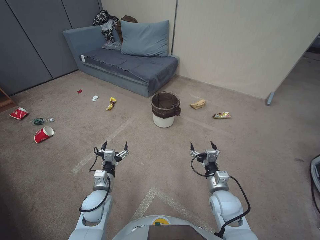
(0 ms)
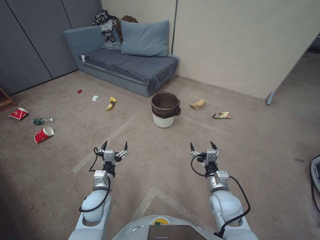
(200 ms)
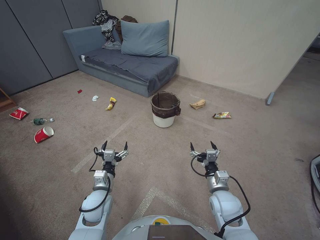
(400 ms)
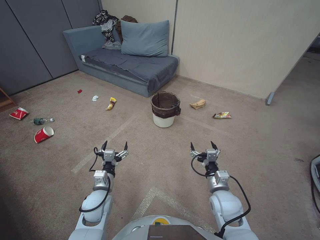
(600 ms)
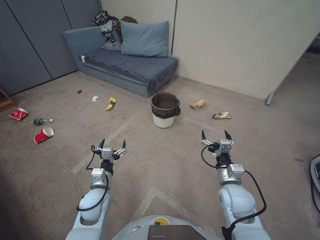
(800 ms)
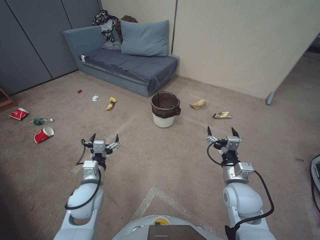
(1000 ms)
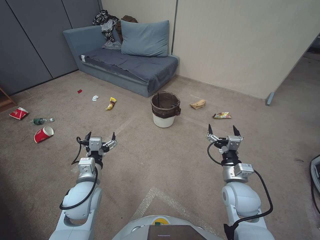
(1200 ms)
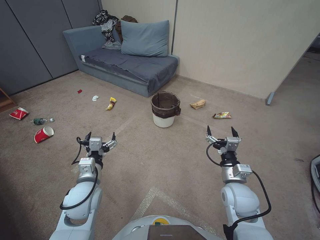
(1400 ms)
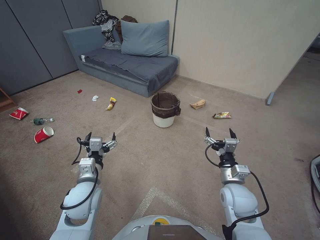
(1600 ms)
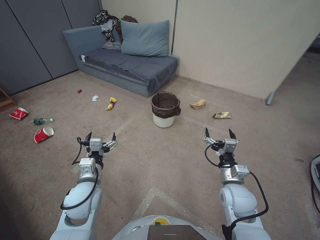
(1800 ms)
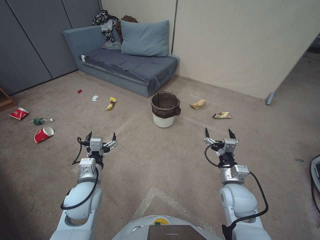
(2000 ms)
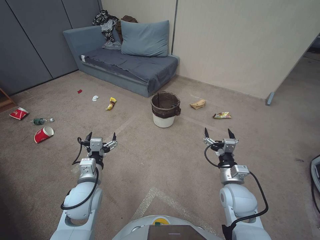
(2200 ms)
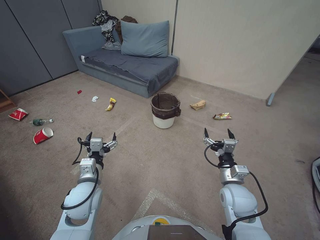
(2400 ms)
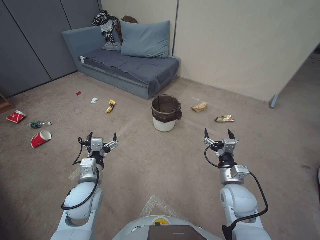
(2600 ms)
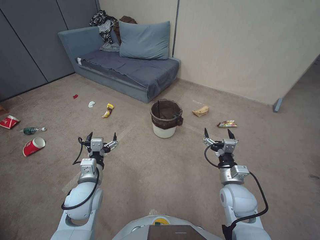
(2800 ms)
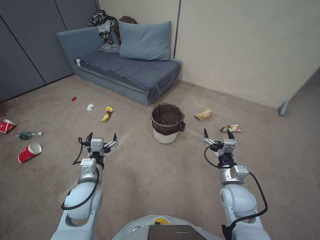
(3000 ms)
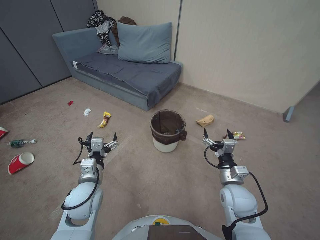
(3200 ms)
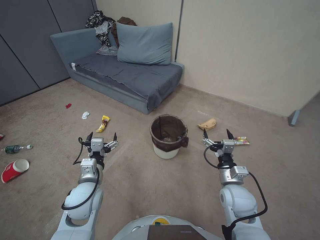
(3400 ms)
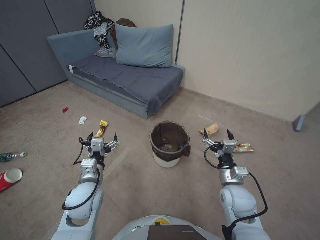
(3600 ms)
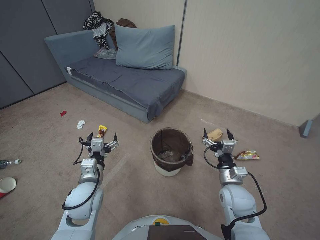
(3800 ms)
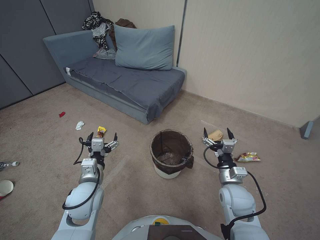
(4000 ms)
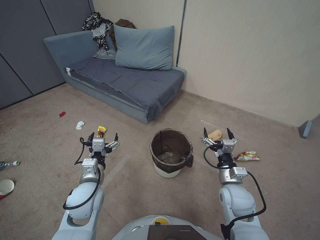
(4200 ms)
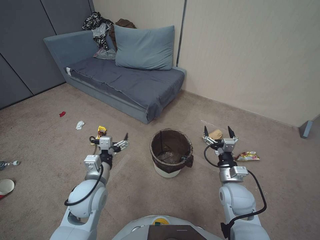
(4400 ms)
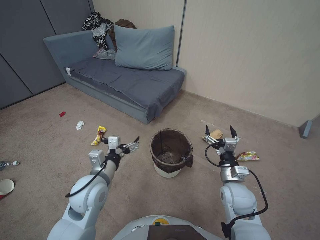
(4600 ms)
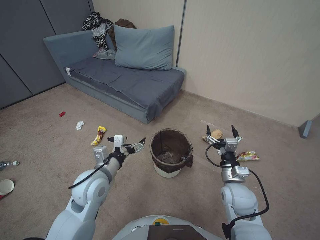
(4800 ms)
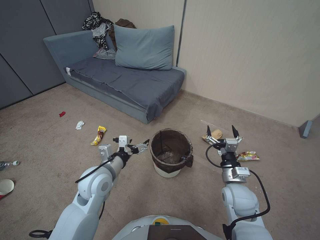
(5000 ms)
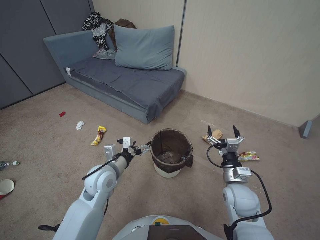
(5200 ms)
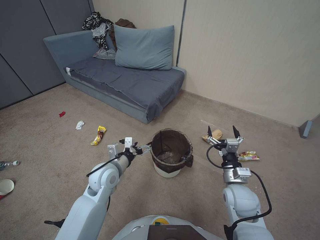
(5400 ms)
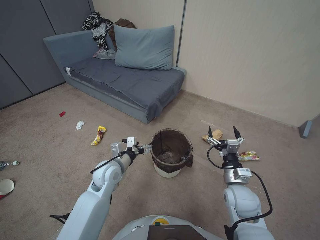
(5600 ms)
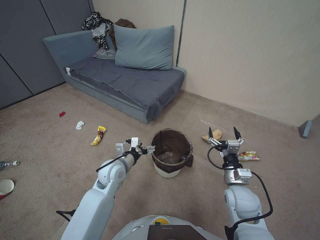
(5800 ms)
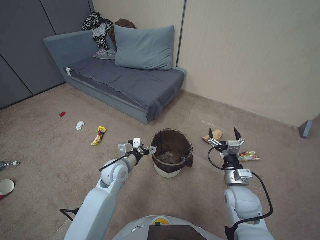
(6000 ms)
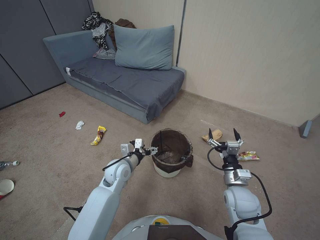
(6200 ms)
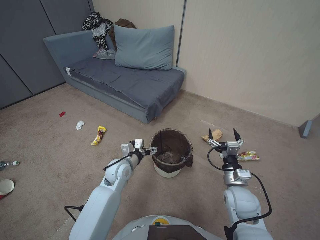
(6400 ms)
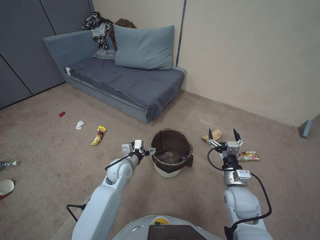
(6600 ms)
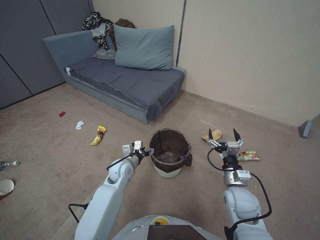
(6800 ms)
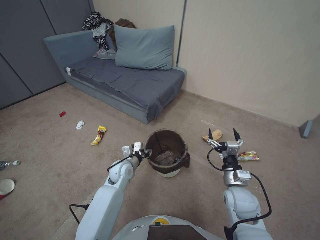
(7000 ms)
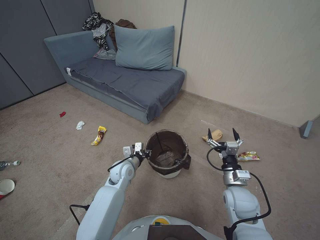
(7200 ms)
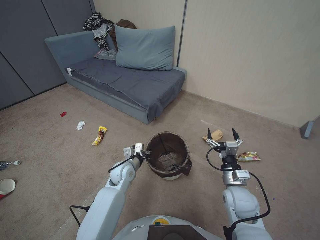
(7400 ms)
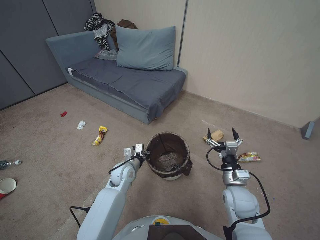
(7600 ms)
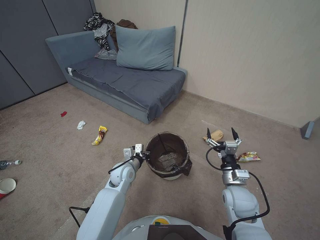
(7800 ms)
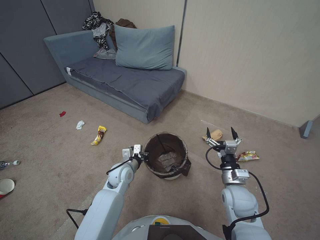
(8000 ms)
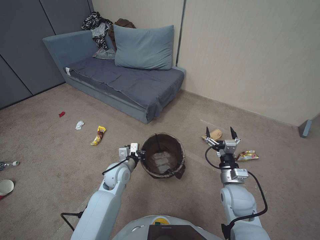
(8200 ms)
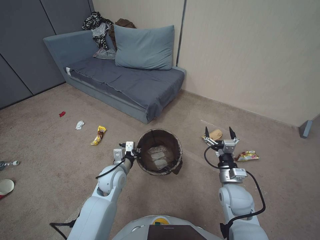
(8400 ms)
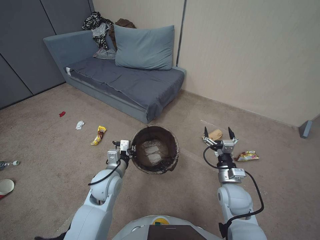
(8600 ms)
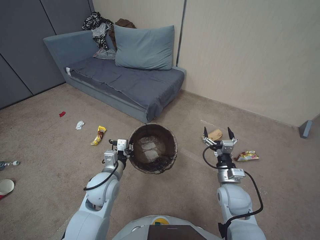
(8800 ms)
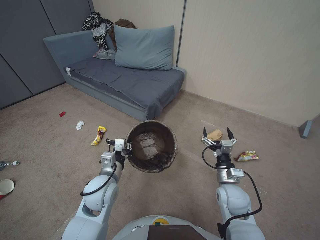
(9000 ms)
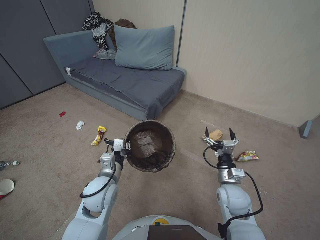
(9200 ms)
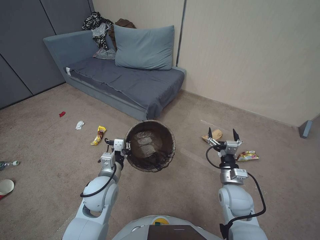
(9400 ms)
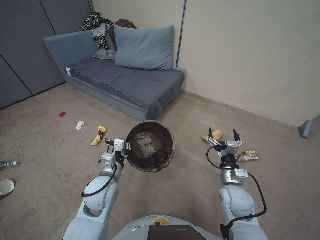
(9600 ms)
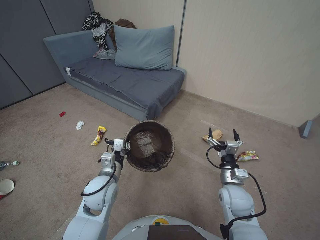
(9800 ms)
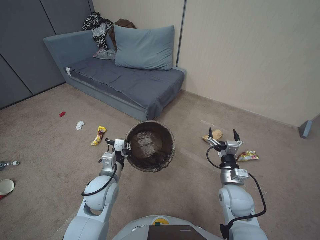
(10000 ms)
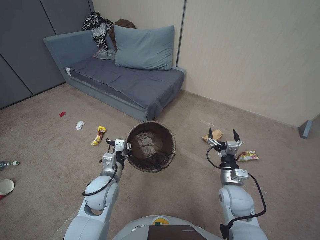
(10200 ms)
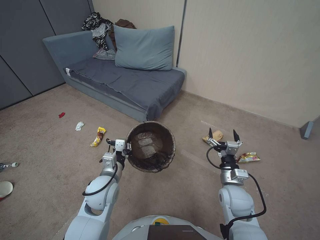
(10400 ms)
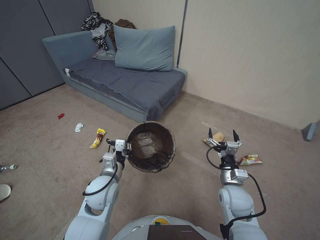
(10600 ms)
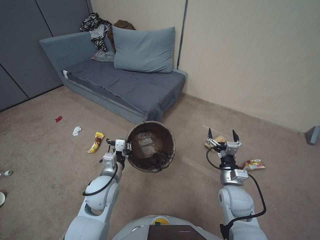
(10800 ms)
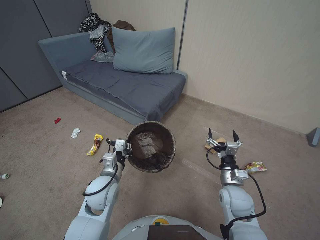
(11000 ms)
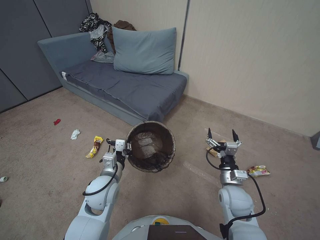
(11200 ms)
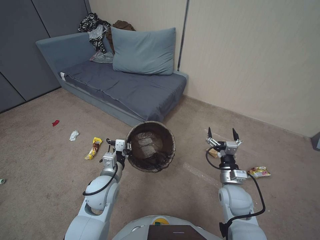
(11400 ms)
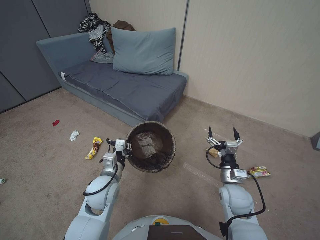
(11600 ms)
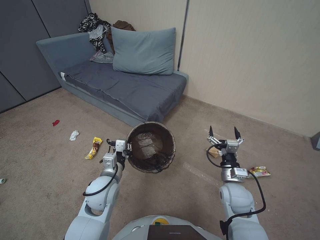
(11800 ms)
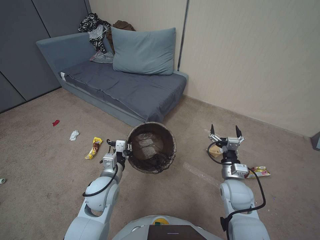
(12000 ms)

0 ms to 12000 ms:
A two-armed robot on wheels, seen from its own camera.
Task of the whole recording: Pick up the trash bin, then pick up the garbage from the floor and place it into the trash bin.
1600 ms to 3000 ms: Neither gripper changes place.
3000 ms to 4400 ms: Both grippers stay about where they are.
4400 ms to 6000 ms: The left gripper heads forward and to the right, covering some 10 cm.
6000 ms to 7600 ms: The left gripper travels downward by roughly 5 cm, and closes its fingers.
7600 ms to 9000 ms: The left gripper shifts about 15 cm upward and backward.
9000 ms to 10400 ms: Both grippers stay put.
10400 ms to 12000 ms: Both grippers stay about where they are.

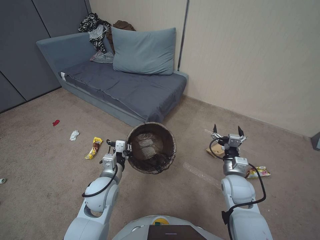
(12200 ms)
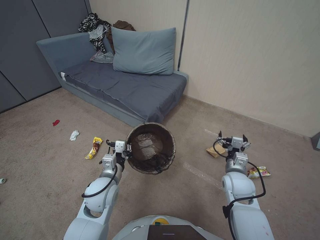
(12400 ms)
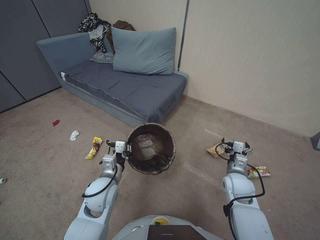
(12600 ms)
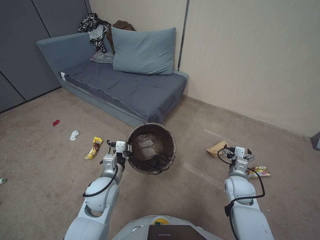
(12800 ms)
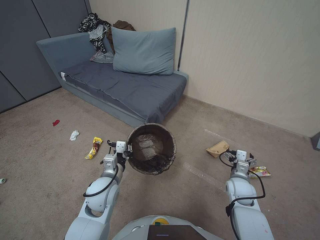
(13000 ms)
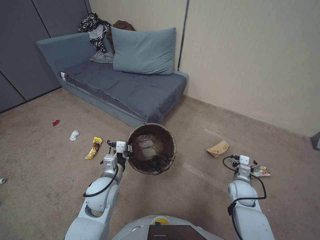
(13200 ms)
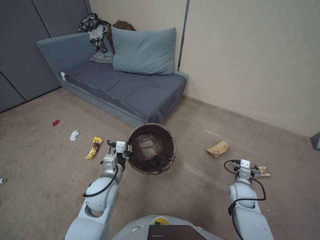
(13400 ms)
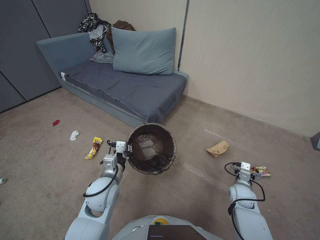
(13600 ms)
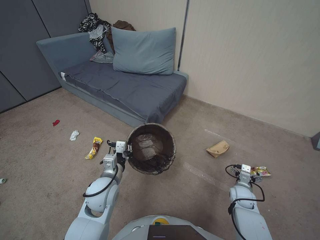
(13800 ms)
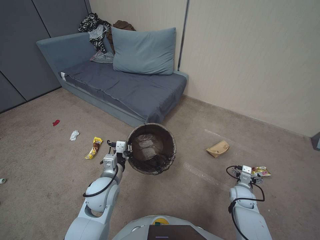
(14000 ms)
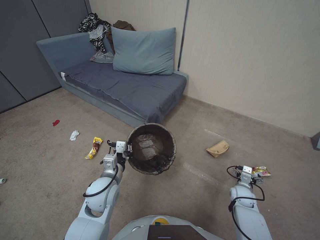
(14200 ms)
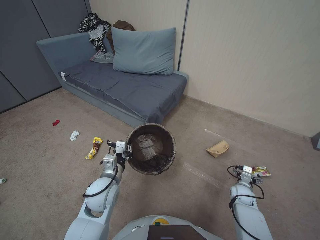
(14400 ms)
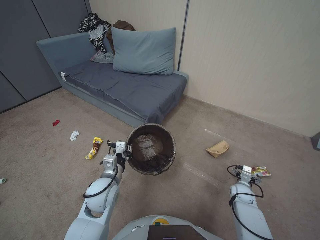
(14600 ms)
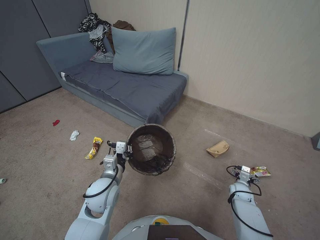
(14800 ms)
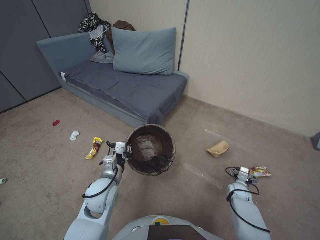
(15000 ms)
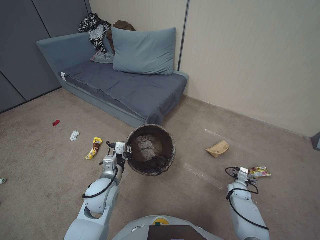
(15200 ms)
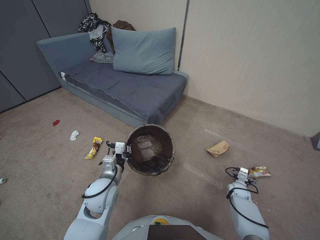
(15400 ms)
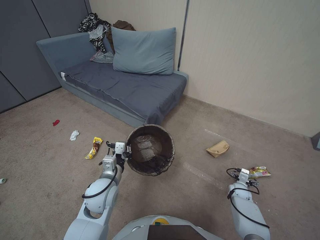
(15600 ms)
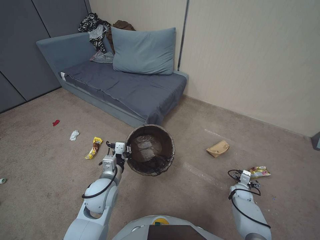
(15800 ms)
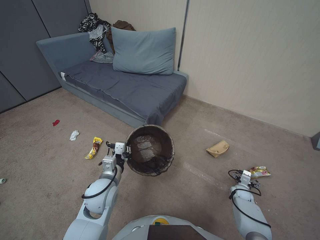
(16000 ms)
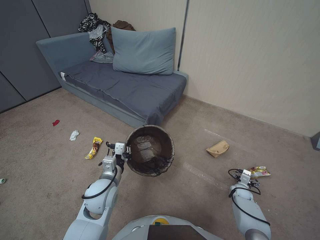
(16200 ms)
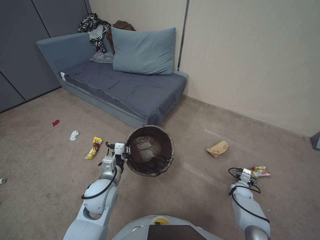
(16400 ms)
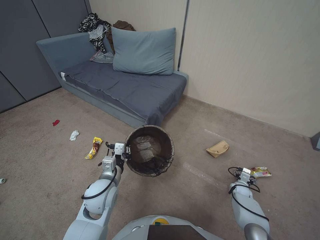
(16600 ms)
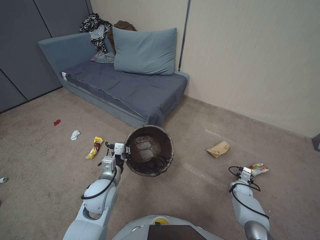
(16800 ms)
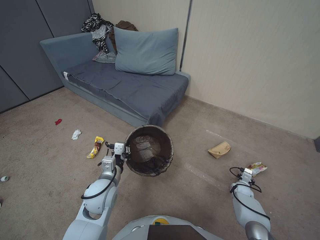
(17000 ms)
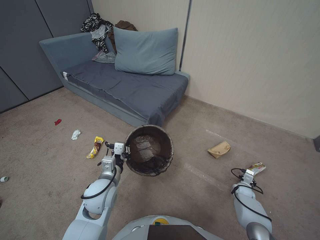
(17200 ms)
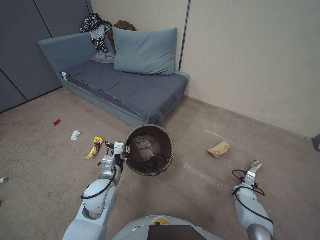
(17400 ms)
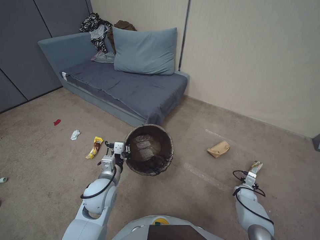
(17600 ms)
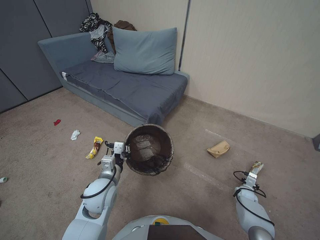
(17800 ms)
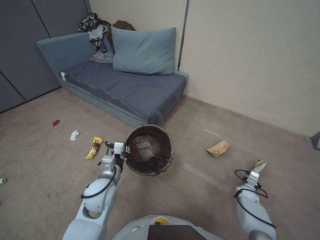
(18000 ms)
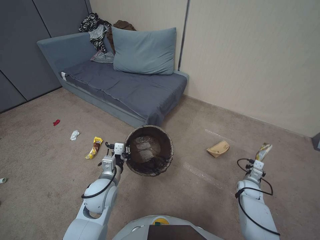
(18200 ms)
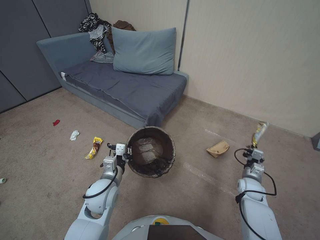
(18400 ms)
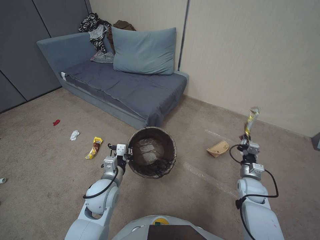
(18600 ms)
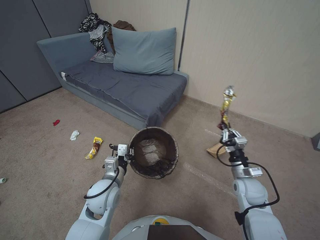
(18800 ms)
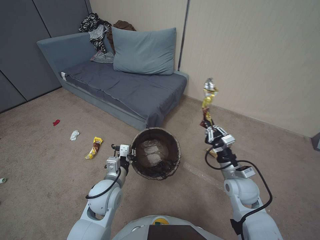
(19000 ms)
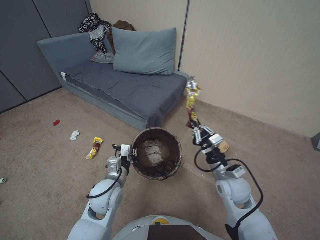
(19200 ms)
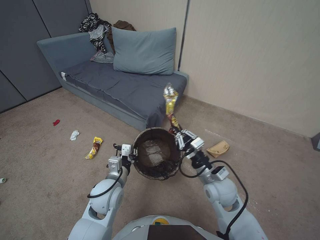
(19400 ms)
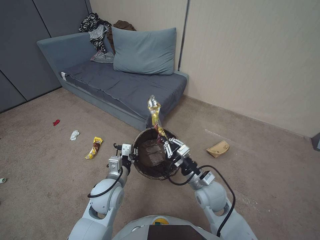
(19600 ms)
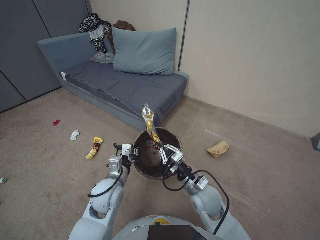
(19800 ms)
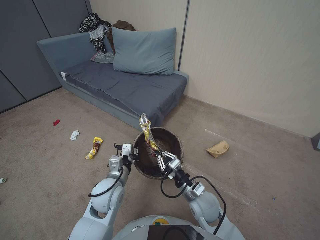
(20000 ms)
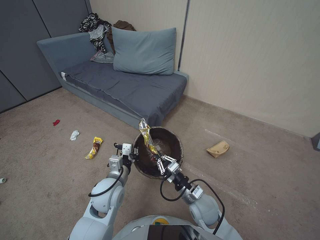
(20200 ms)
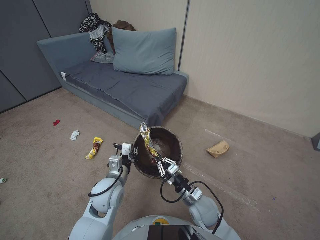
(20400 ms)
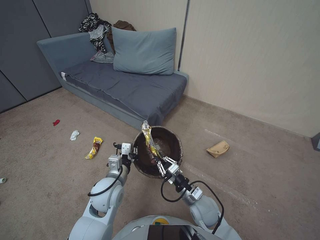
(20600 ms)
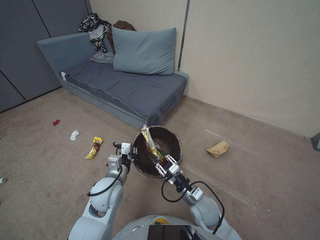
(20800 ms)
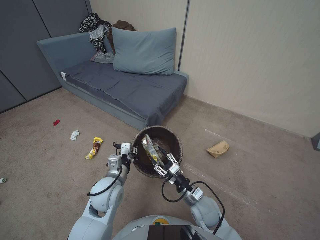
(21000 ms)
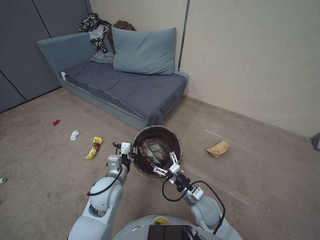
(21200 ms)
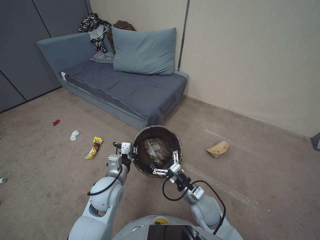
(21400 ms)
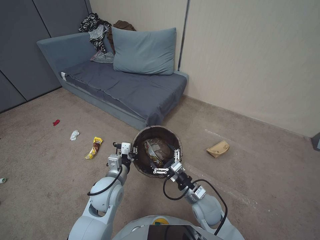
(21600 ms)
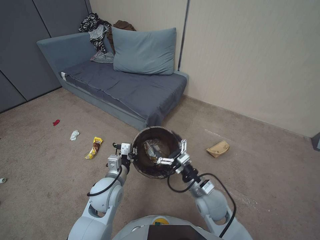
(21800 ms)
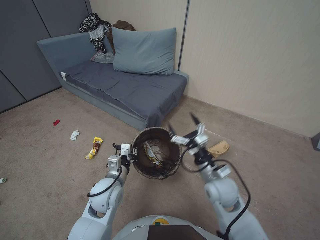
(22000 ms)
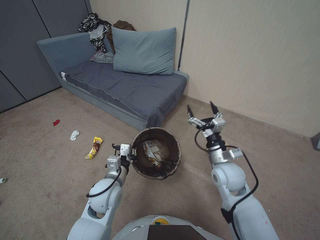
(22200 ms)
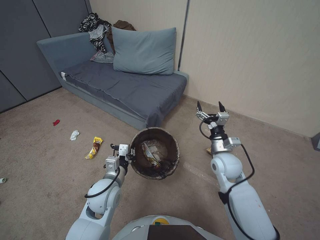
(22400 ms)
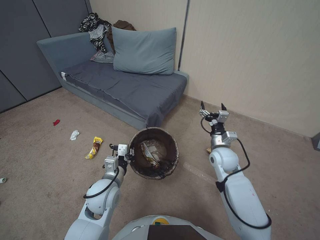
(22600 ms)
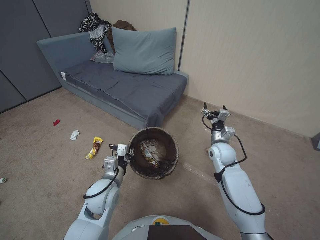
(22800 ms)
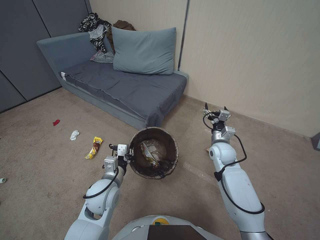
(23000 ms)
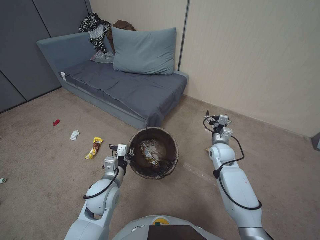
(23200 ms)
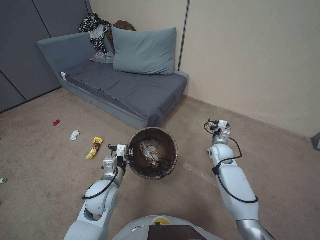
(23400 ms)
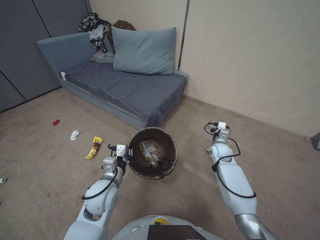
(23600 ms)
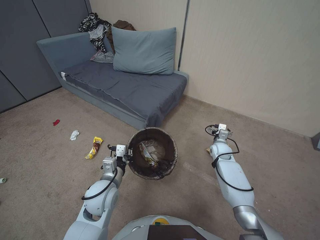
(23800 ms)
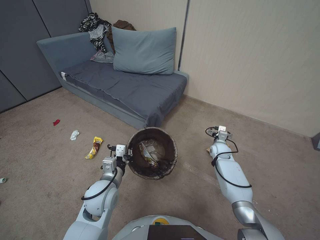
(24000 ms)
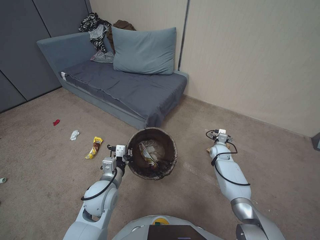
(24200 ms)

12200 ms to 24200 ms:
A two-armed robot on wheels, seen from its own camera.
Task of the whole recording: Pick up the trash bin, then pick up the garbage from the floor and place it into the trash bin.
12200 ms to 13800 ms: The right gripper goes roughly 15 cm downward and to the right.
13800 ms to 15200 ms: The right gripper travels downward and to the right by roughly 10 cm.
15200 ms to 16600 ms: The grippers stay close to where they were, moving slightly.
16600 ms to 18200 ms: The right gripper closes its fingers.
18200 ms to 19800 ms: The right gripper is displaced to the left and upward by about 35 cm.
19800 ms to 21200 ms: The right gripper moves downward, about 5 cm, and opens its fingers.
21200 ms to 22600 ms: The right gripper goes about 20 cm forward, upward and to the right, and opens up.
22600 ms to 24200 ms: The right gripper is displaced downward, forward and to the right by approximately 20 cm.
